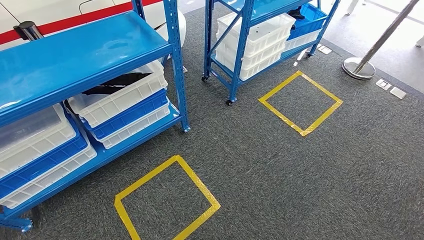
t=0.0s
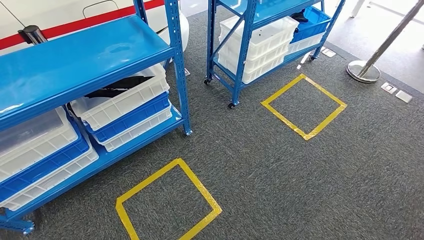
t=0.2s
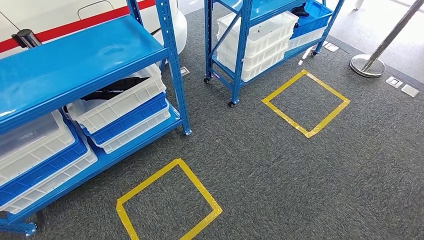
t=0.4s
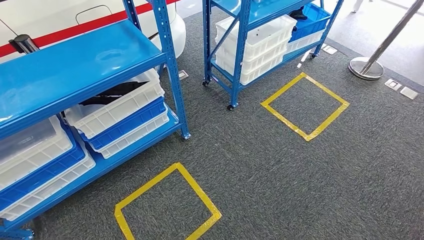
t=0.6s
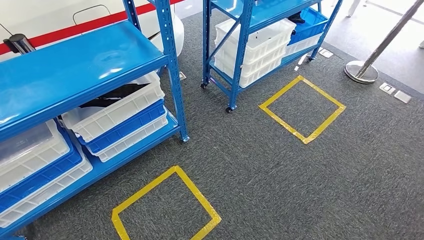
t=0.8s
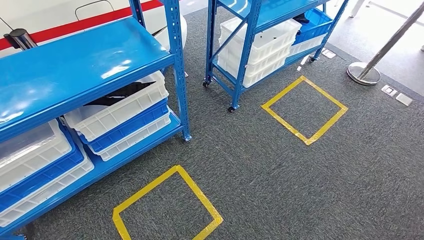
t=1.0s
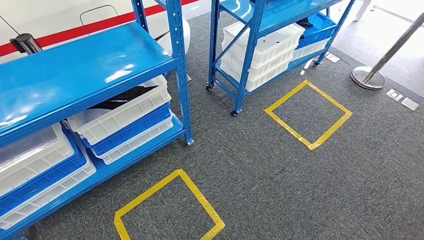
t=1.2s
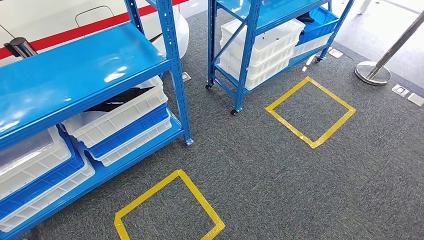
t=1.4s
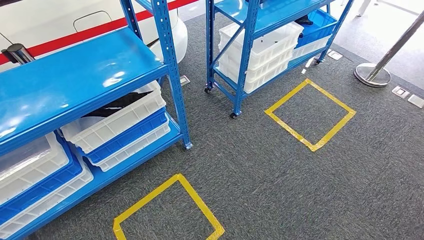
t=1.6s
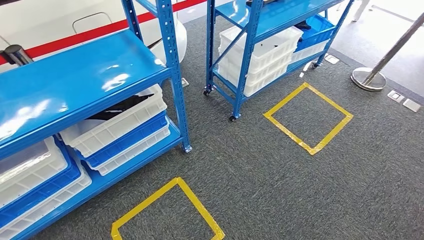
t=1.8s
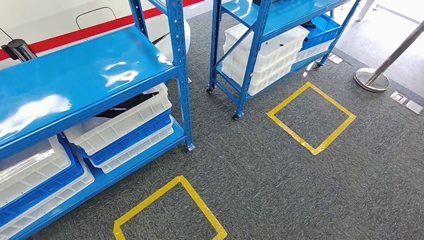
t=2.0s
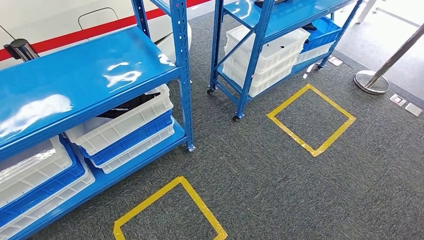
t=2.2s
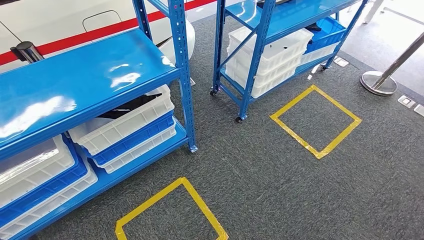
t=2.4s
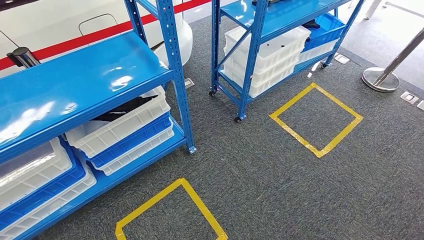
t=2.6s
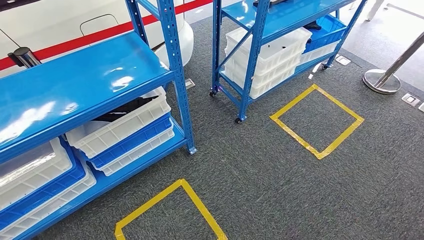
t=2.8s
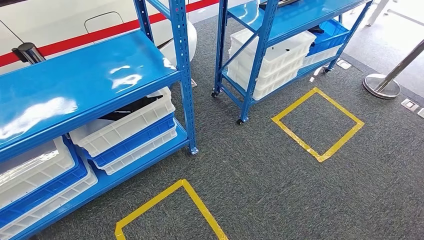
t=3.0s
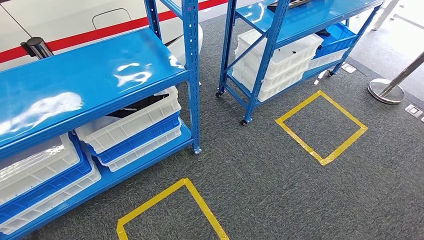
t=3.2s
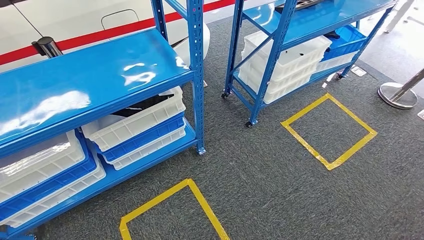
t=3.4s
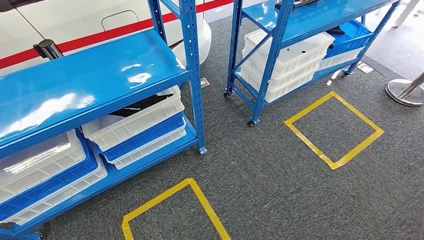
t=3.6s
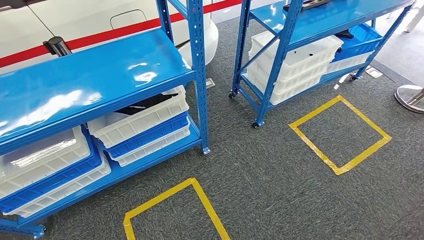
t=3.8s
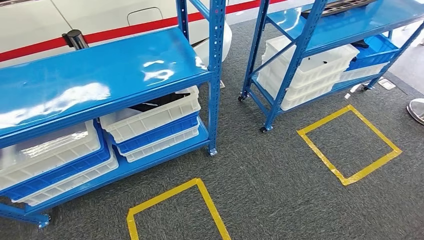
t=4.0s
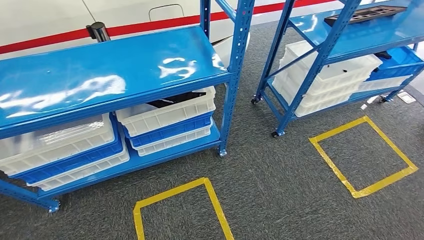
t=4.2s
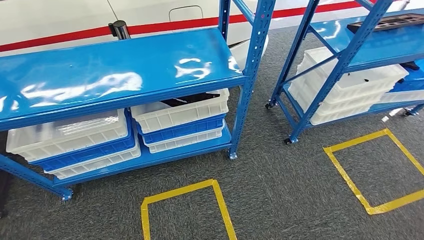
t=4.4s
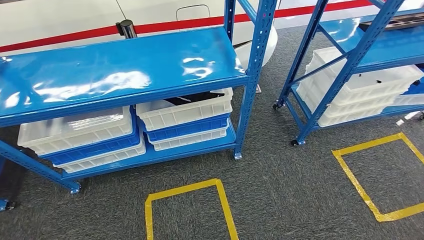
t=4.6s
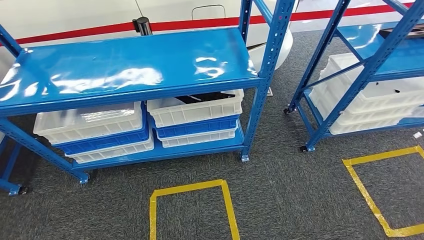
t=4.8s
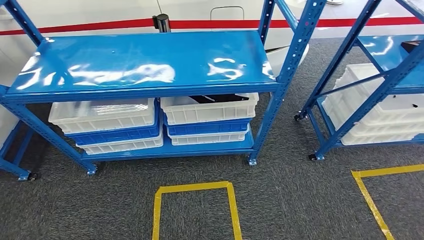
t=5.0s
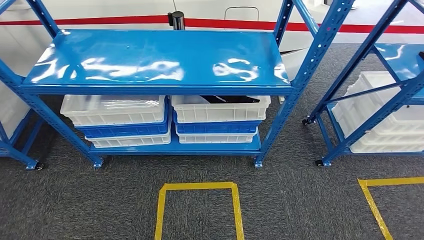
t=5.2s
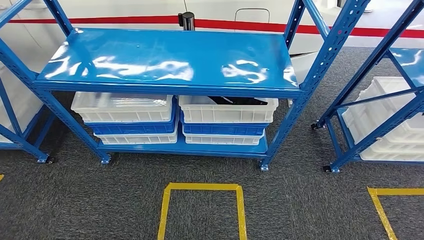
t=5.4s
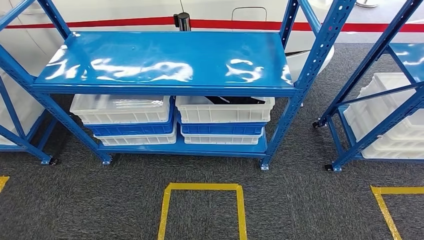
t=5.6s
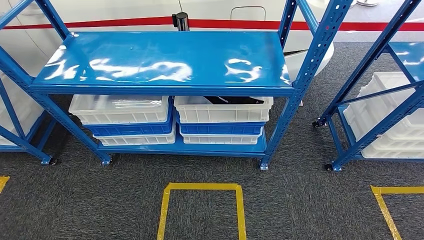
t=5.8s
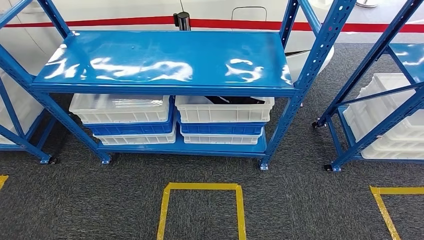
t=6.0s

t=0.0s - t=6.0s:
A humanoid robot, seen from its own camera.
Step, t=0.0s - t=6.0s: Return to the initial position at the shelf.

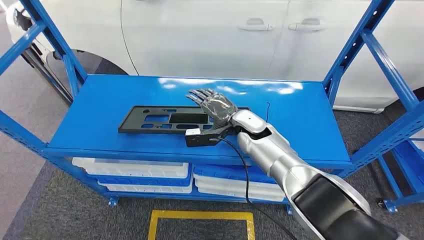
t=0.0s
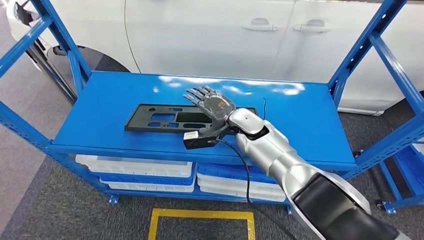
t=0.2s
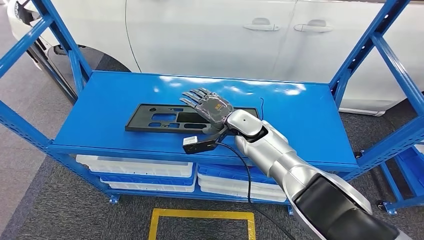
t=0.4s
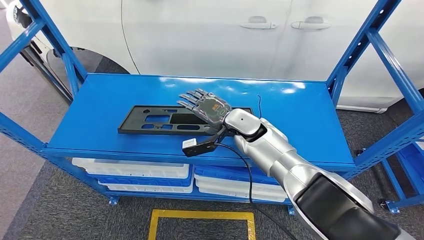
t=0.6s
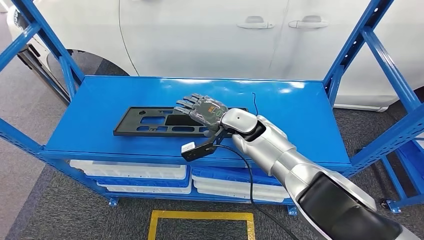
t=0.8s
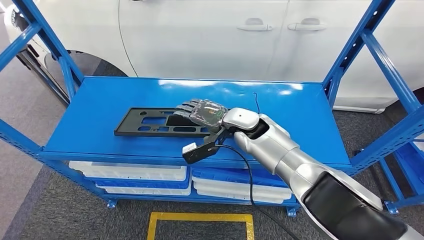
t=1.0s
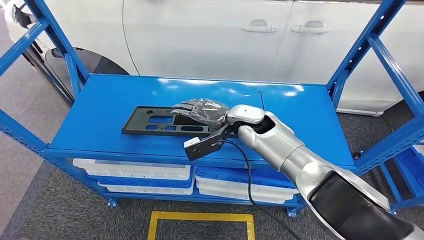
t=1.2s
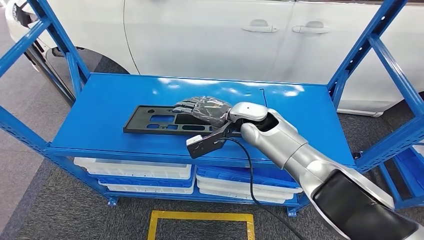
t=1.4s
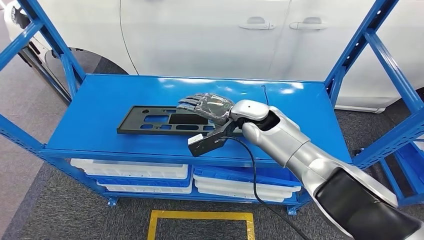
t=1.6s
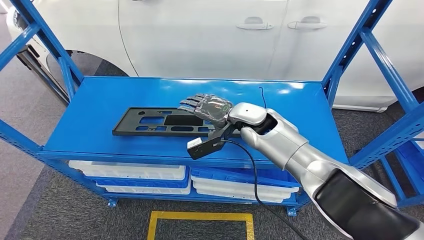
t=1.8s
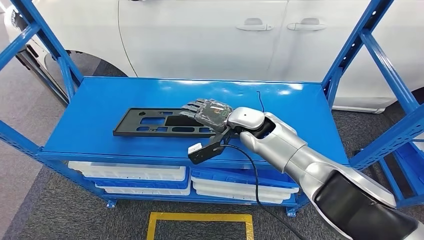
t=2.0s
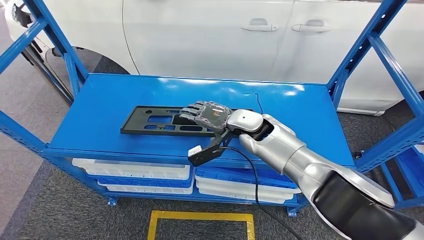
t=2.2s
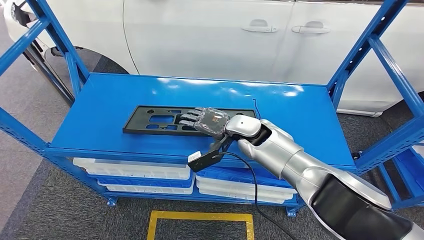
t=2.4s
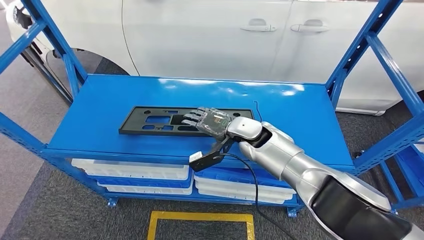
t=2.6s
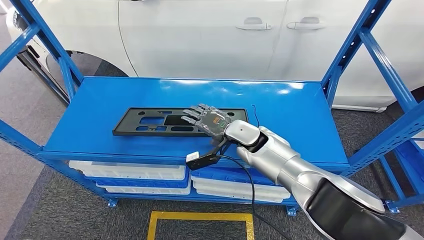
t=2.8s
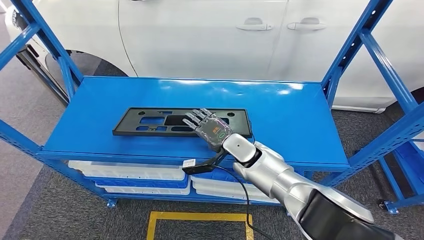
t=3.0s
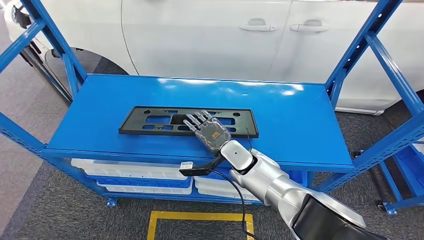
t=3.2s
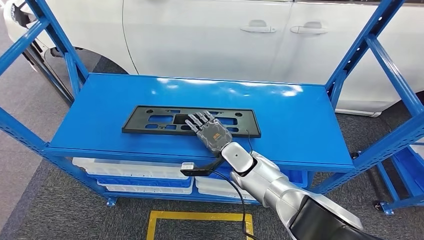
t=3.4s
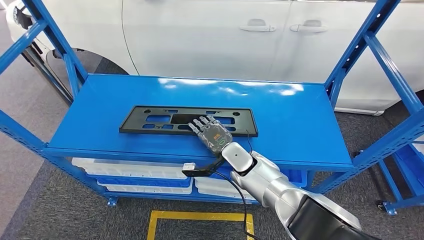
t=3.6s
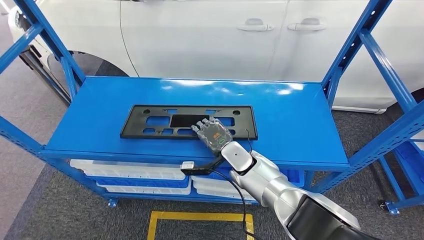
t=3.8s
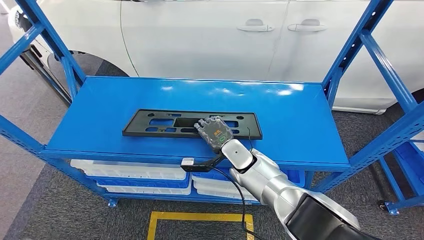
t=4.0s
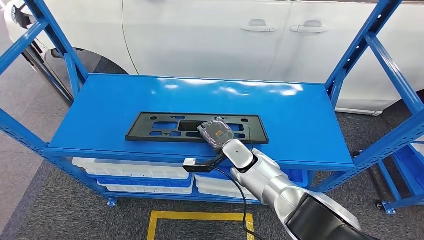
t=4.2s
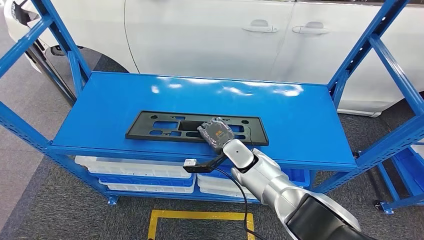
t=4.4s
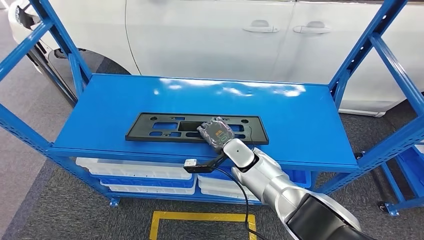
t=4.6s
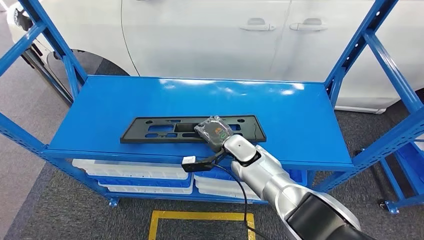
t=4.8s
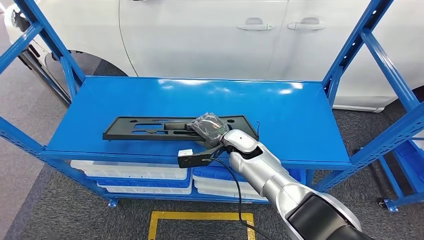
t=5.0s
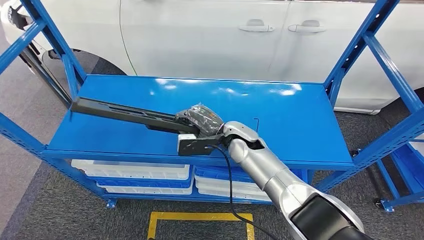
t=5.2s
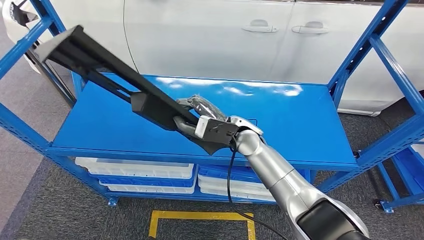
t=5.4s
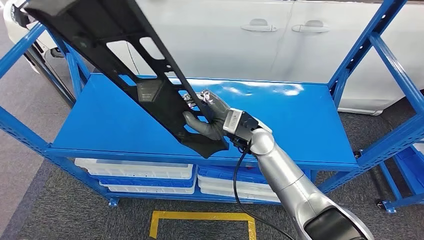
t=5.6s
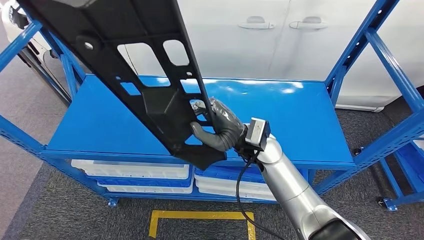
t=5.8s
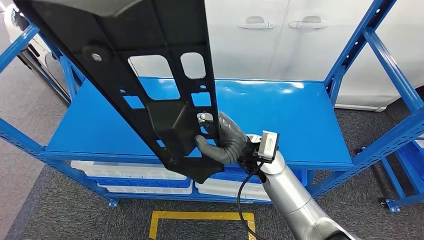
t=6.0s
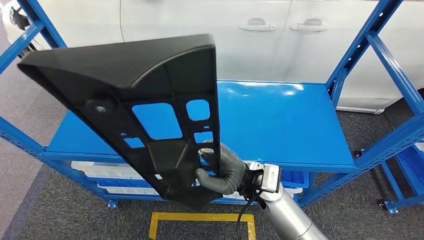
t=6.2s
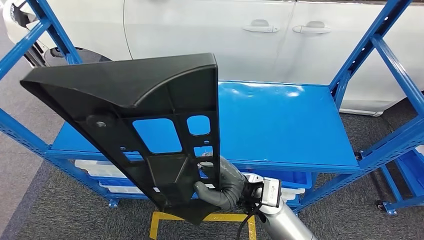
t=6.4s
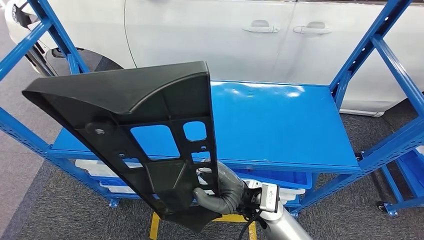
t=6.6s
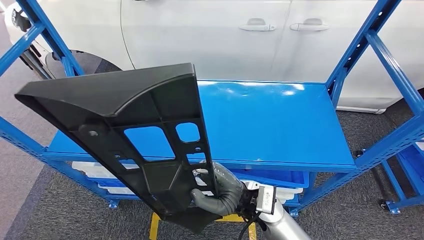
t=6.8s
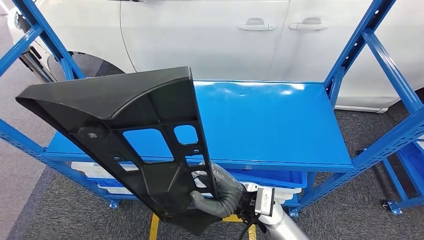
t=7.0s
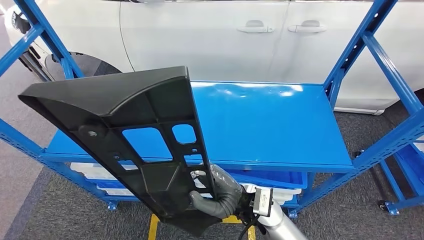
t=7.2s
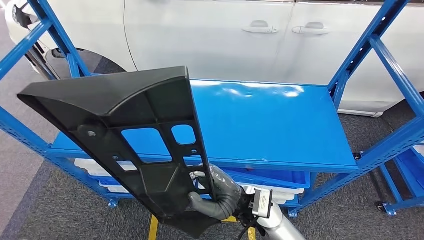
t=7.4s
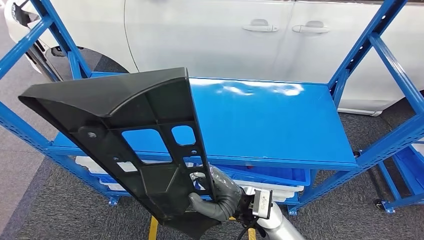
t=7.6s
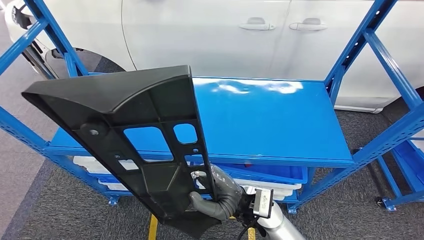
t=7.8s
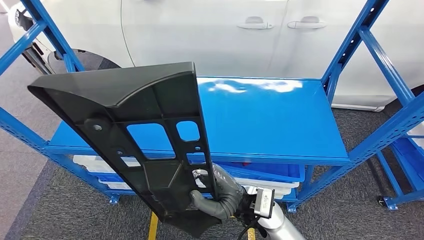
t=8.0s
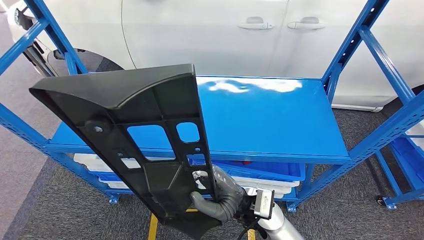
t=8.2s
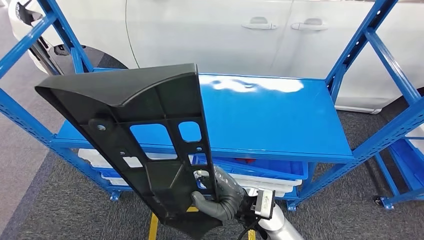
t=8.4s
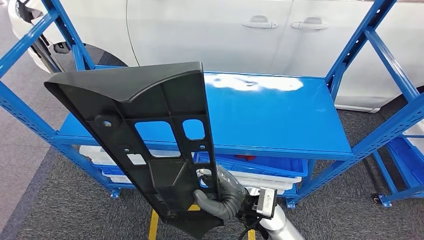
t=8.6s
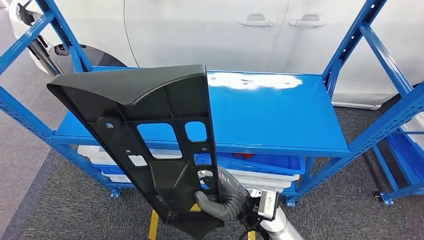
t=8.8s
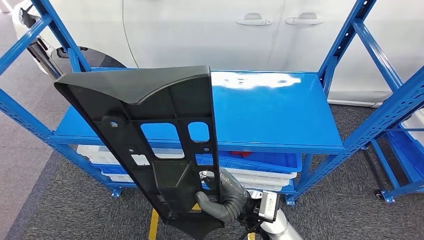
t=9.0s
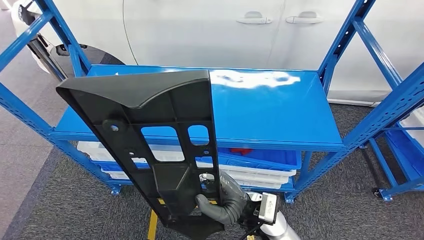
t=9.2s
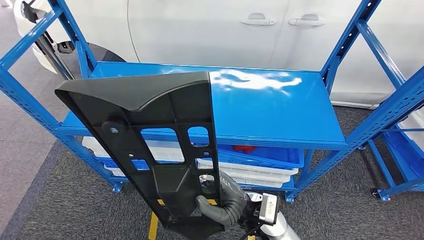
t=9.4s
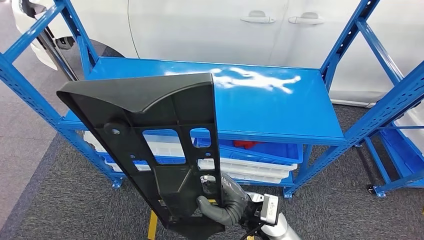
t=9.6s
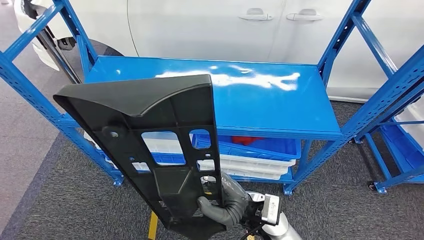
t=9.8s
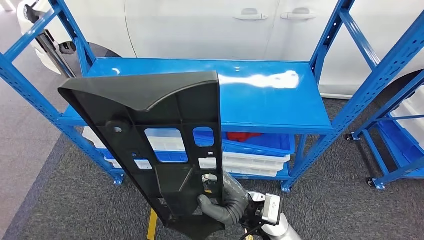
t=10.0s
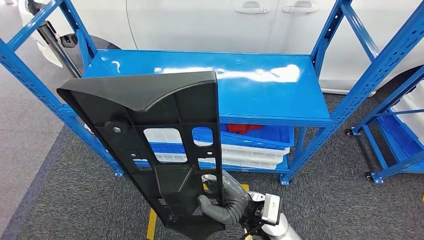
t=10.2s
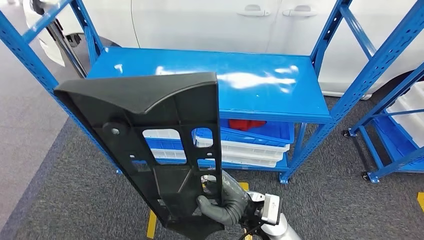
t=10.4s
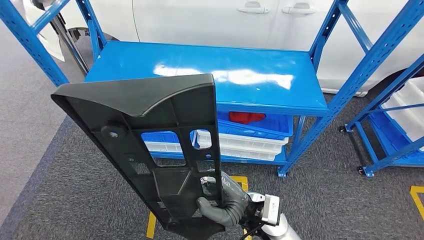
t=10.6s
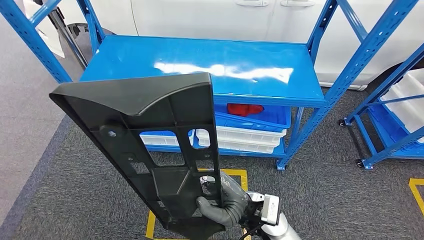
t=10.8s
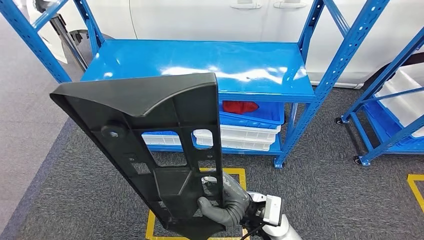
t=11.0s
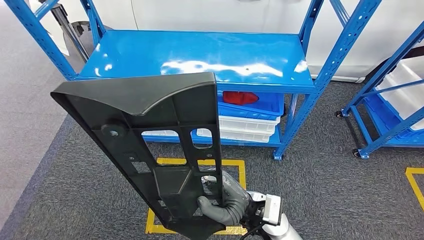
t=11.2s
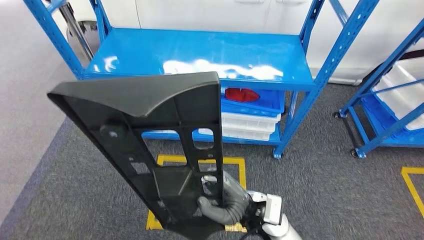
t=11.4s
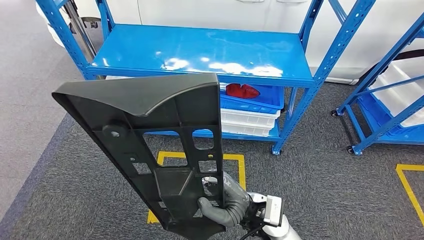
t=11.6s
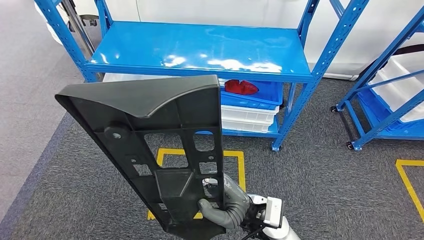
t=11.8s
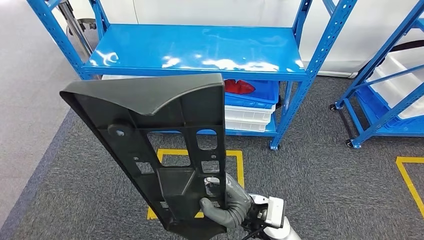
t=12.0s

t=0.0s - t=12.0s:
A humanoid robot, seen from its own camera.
Step, t=0.0s - t=7.0s: Pick up the large material from the shelf.
